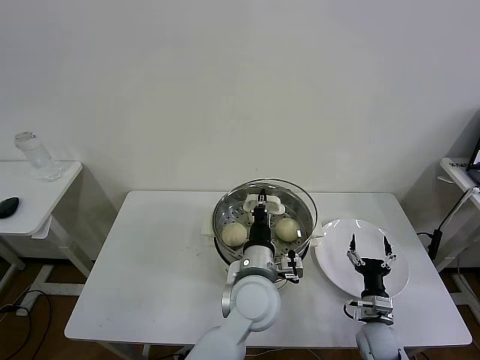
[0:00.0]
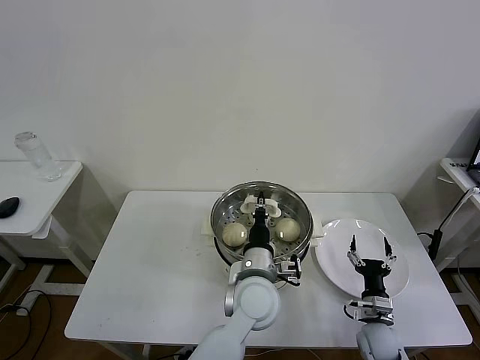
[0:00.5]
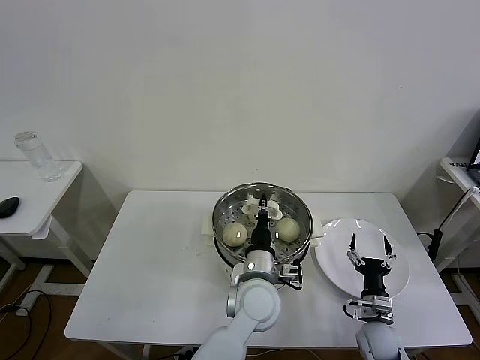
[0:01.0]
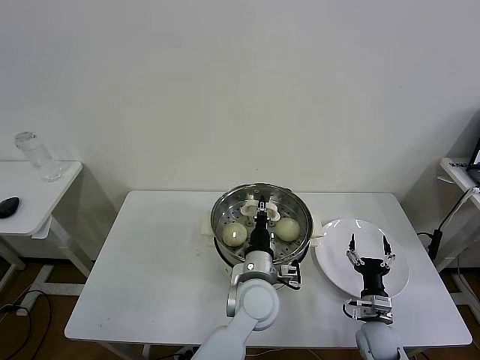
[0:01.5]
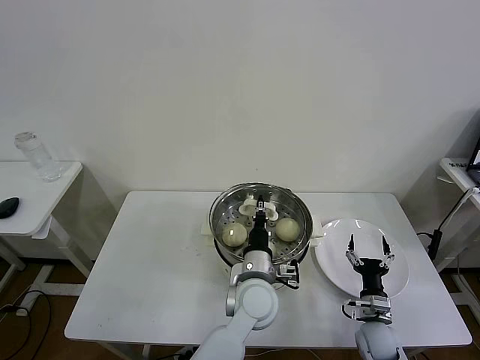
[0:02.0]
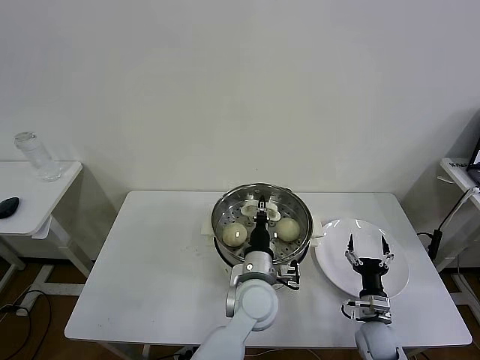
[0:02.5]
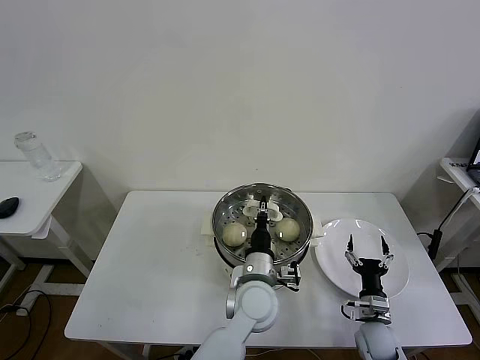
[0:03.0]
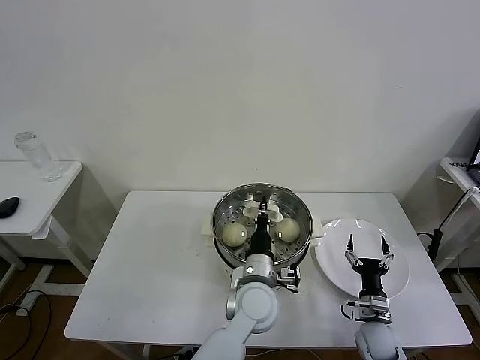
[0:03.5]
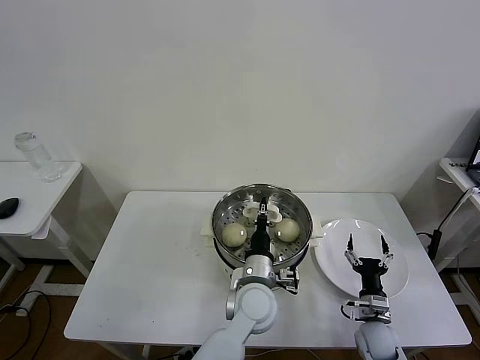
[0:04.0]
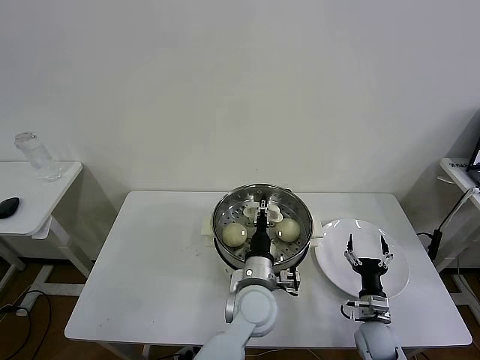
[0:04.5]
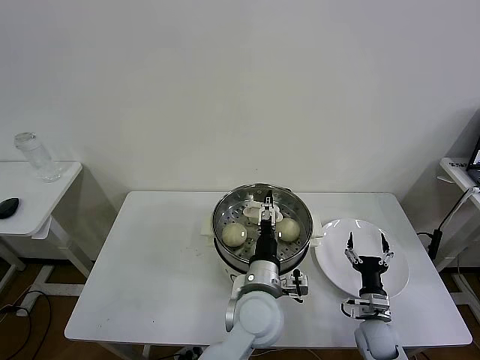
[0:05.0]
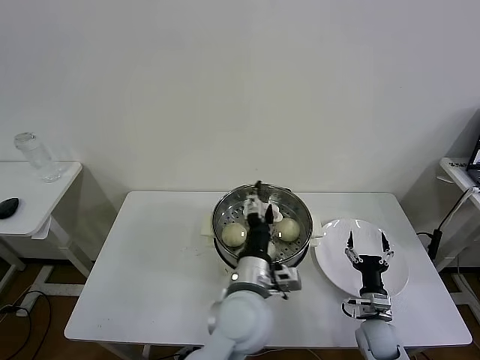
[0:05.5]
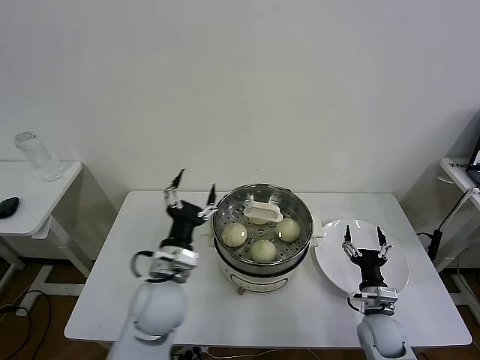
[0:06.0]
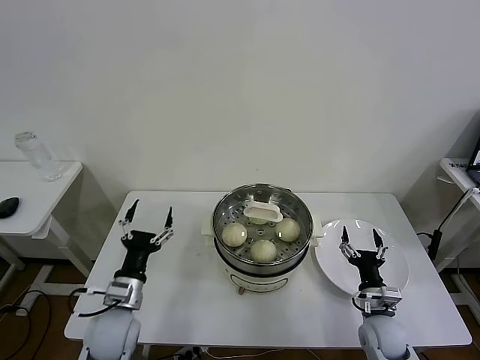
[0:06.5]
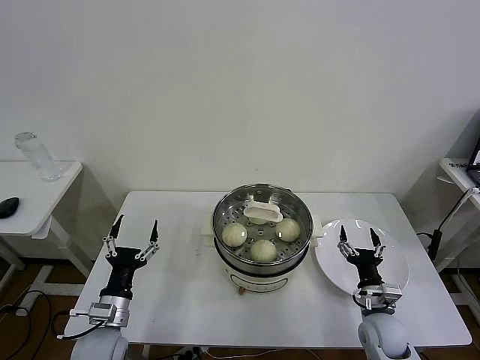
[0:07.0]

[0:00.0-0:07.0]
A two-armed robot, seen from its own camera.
Task of the whole recording: take steamed baozi put them in steamer then cover it.
Step, 0:00.0 to 0:05.0: Place the pot lid on the steamer with left gripper.
0:00.0 to 0:02.0: The left gripper ends up some 5 cm from where it was.
0:02.0 to 0:03.5: Both grippers stay about where they are.
0:03.5 to 0:05.0: The left gripper opens its fingers.
0:05.0 to 0:07.0: The right gripper goes some 5 cm upward; the left gripper moves to the left, roughly 30 cm.
